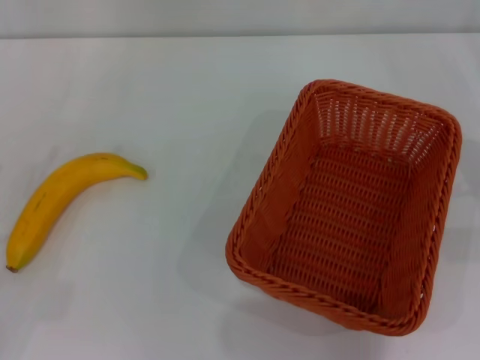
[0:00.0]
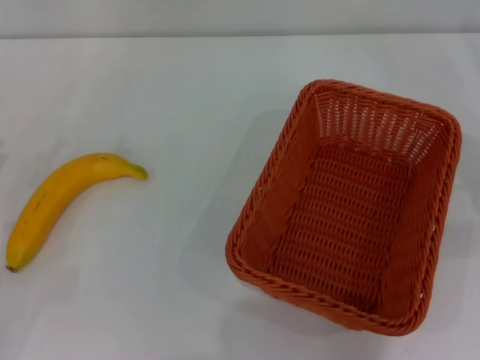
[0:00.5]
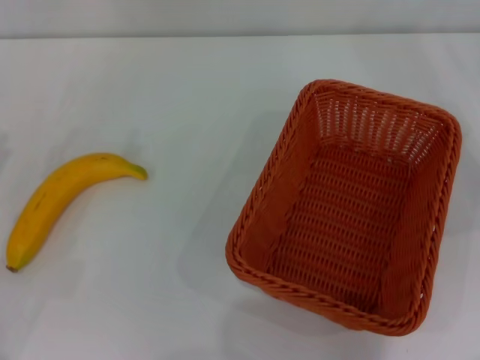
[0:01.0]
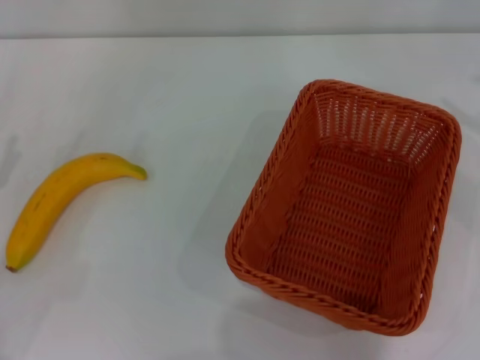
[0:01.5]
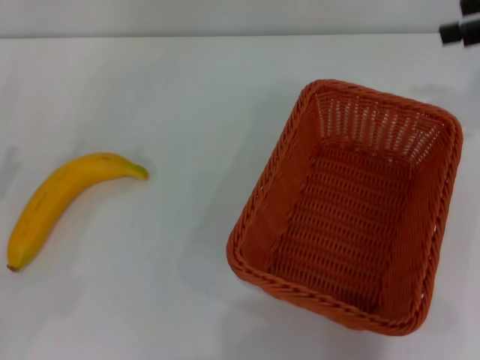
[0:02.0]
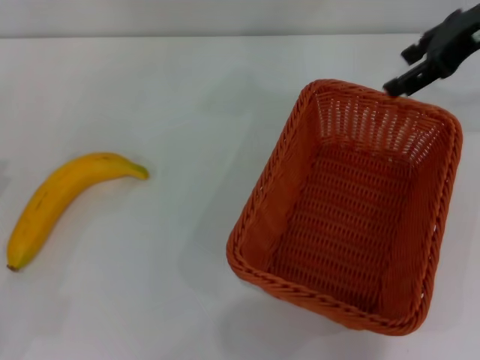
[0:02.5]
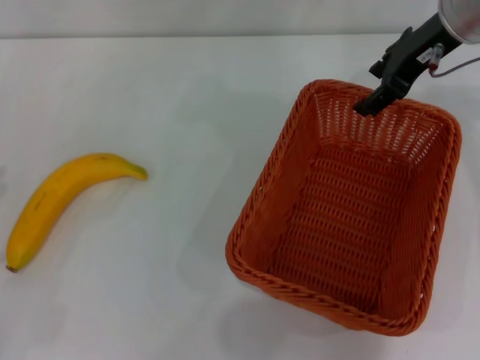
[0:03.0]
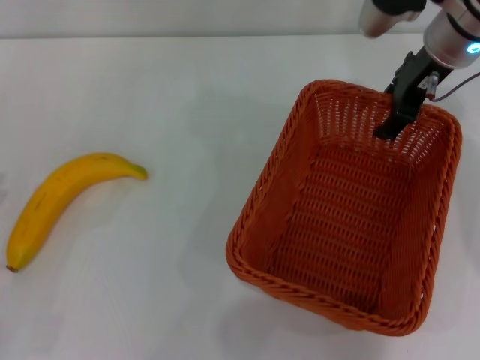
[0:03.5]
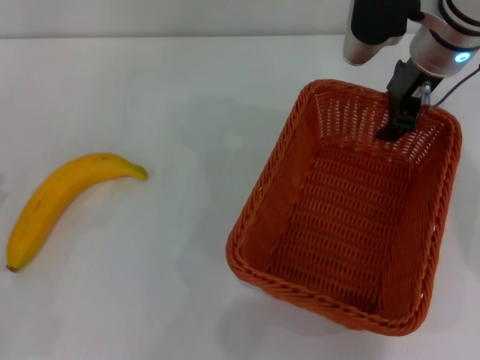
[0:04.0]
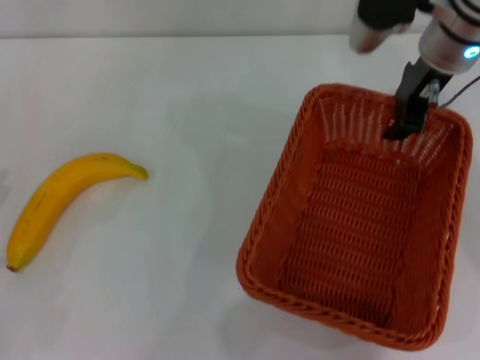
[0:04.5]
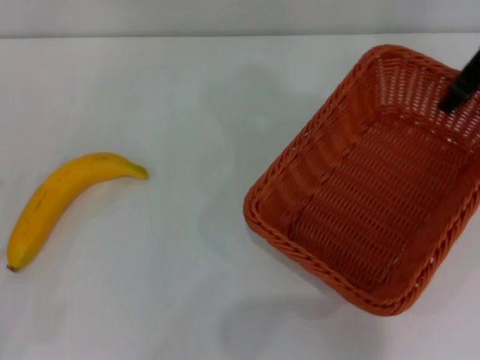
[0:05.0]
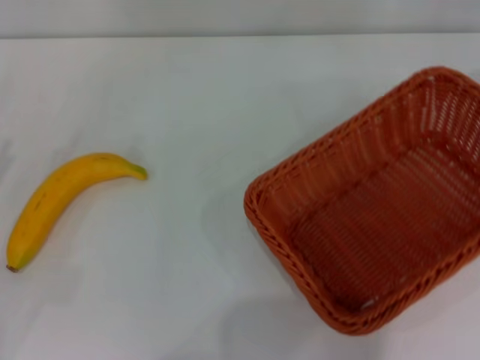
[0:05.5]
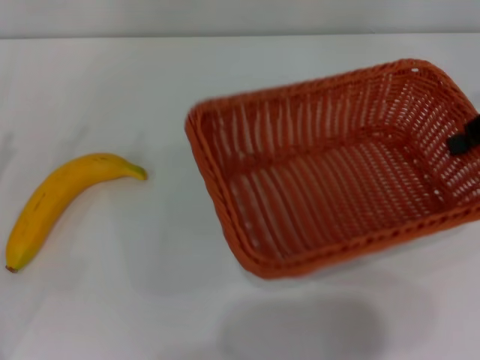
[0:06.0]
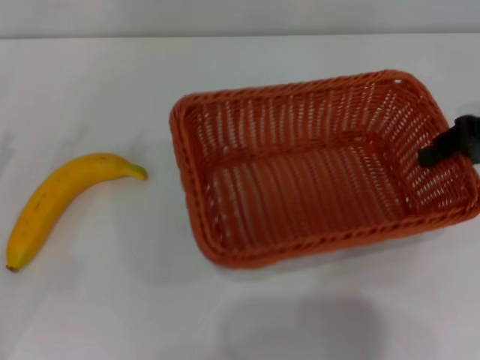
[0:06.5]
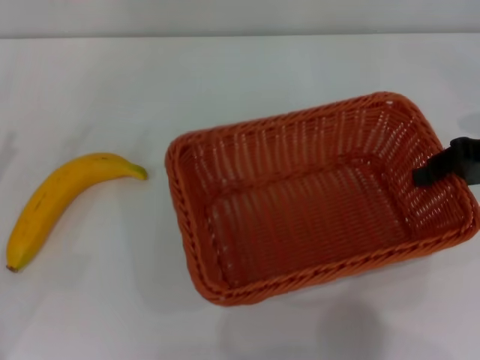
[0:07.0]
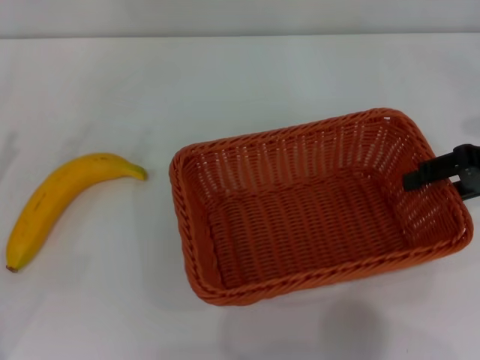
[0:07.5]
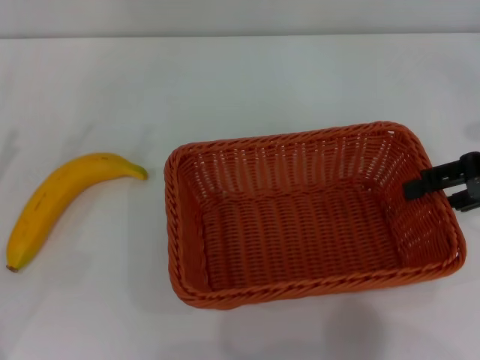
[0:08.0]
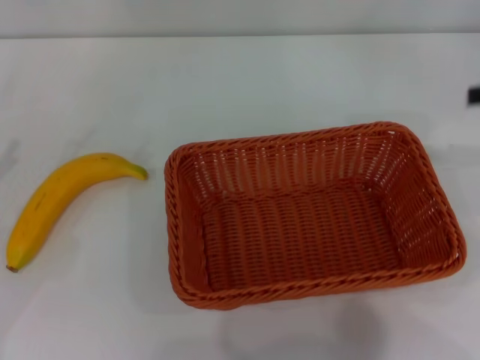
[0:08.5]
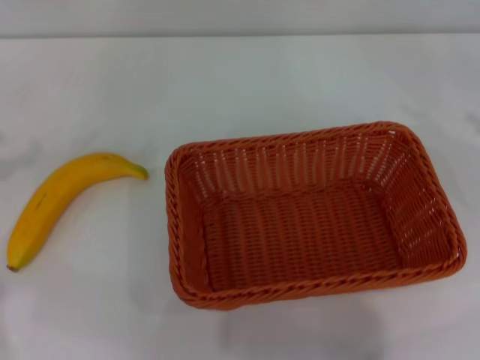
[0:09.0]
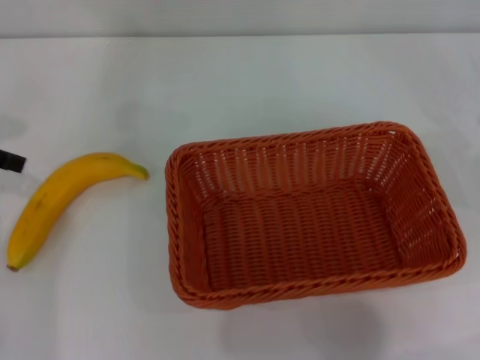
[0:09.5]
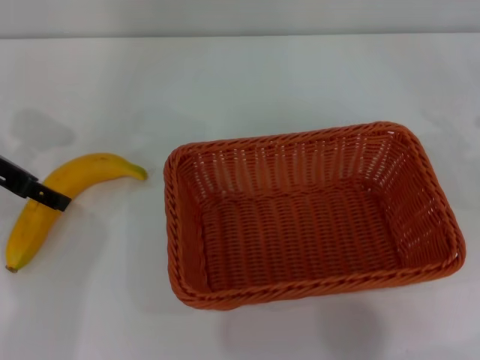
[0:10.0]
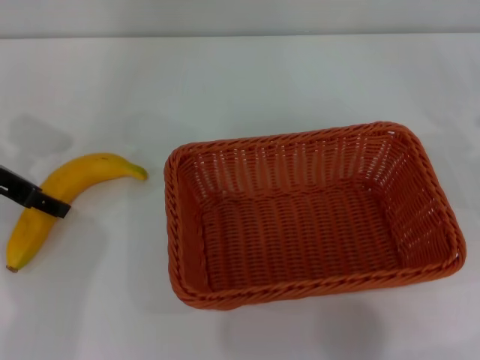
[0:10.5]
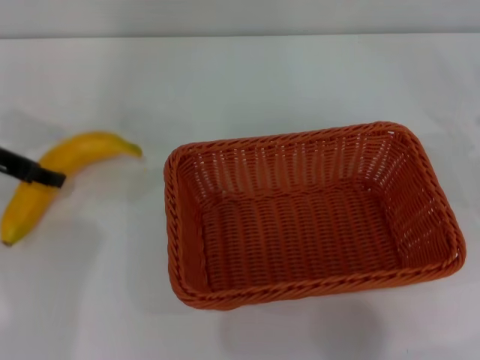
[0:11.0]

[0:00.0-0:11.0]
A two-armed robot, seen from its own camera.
Step, 0:00.0 to 0:04.5: Pick up the light basket with the right gripper.
Step, 0:05.0 to 0:08.0: Place the light basket in the center of view with the right gripper.
0:00.0 to 0:02.0: The right gripper heads upward and forward, covering about 20 cm.
0:02.0 to 0:03.5: The right gripper moves to the left and downward, about 15 cm.
0:03.5 to 0:05.5: The right gripper moves to the right, approximately 15 cm, and closes up. The left gripper changes place by approximately 5 cm.
0:05.5 to 0:07.5: The right gripper shifts about 10 cm downward and backward, and opens.
0:07.5 to 0:09.0: The left gripper travels upward and to the left by some 10 cm. Meanwhile the right gripper goes roughly 10 cm to the right, and opens.
0:09.0 to 0:11.0: The left gripper moves to the right, forward and downward, approximately 15 cm, and closes up.

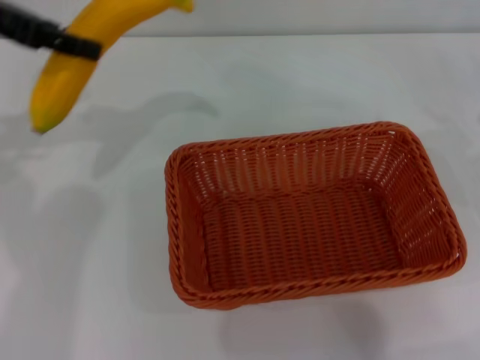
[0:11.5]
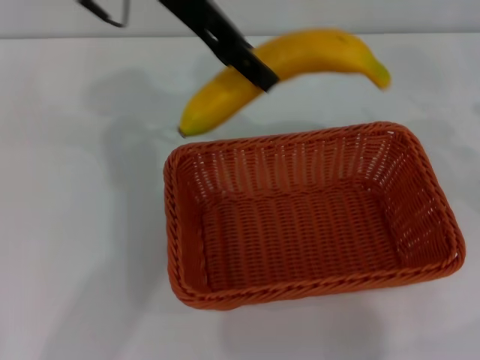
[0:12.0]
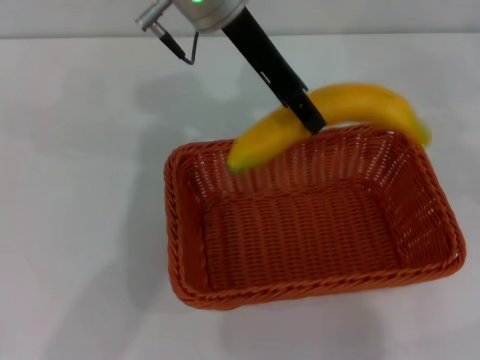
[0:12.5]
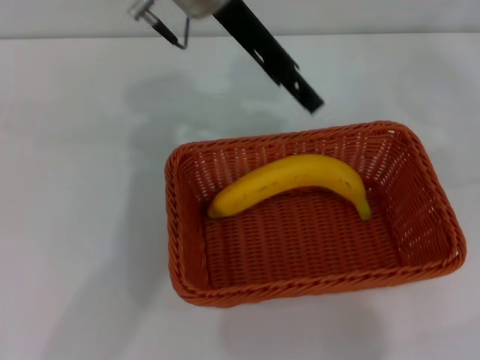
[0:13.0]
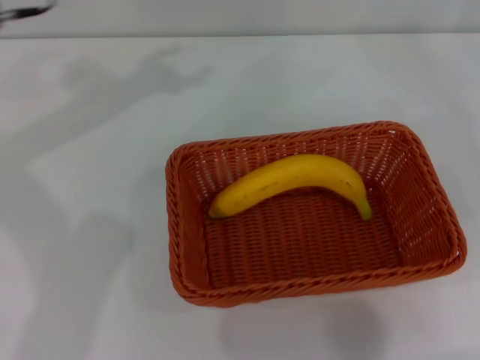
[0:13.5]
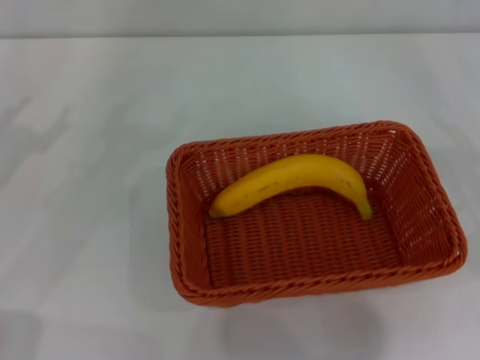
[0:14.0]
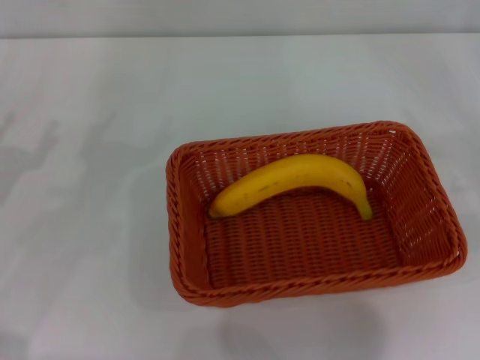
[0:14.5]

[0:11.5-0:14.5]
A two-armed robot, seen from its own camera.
Step, 0:11.5 to 0:12.5: Place the banana into the light basket with the left gripper.
0:11.5 to 0:13.0: The right gripper moves about 5 cm; the left gripper travels to the right by some 25 cm, and opens.
0:13.0 to 0:14.5: The left gripper moves to the left, downward and backward, roughly 40 cm, and opens. The right gripper is displaced downward by roughly 5 cm.

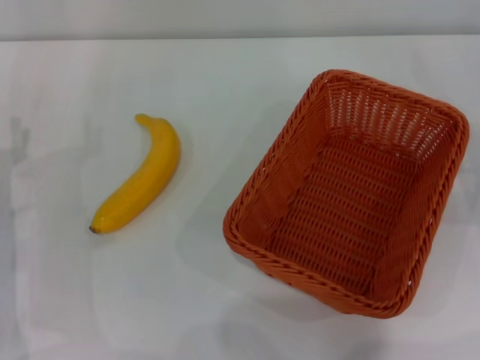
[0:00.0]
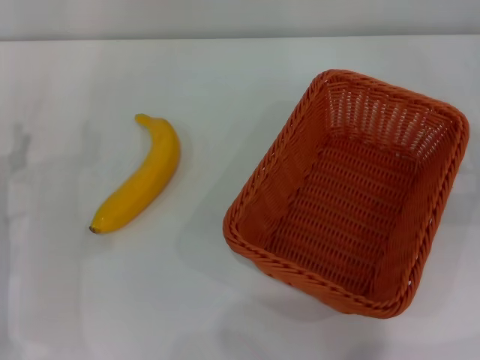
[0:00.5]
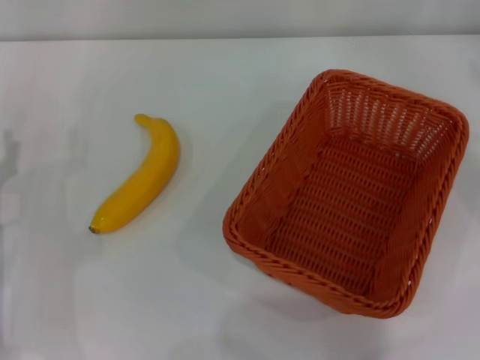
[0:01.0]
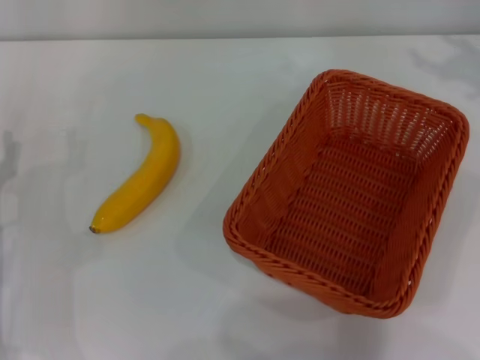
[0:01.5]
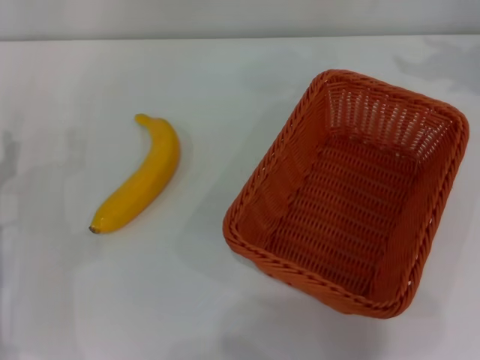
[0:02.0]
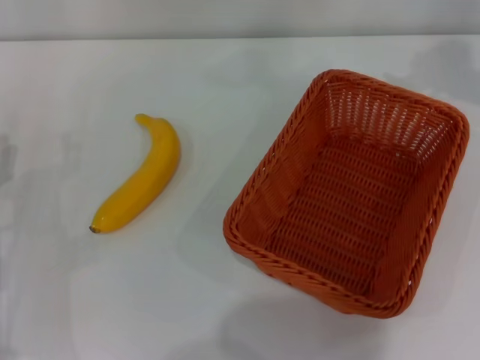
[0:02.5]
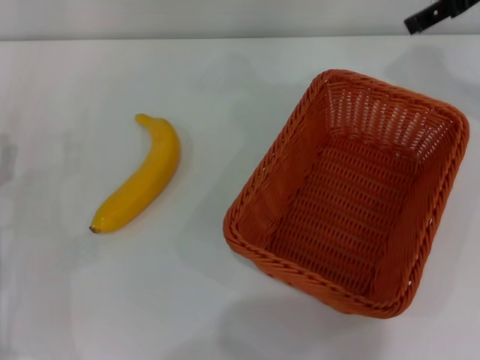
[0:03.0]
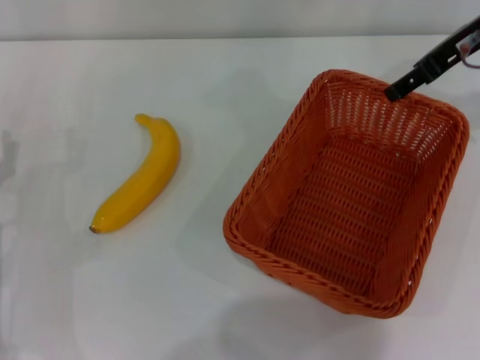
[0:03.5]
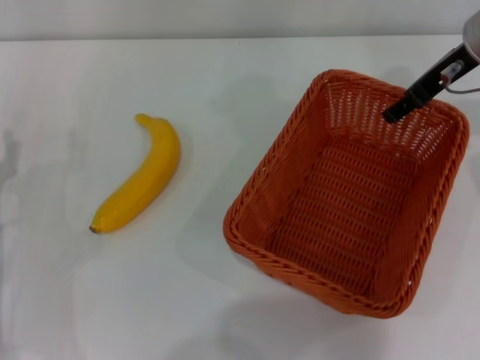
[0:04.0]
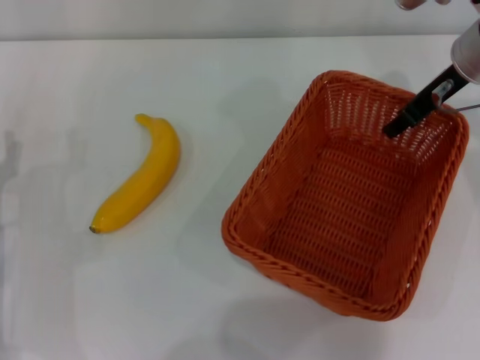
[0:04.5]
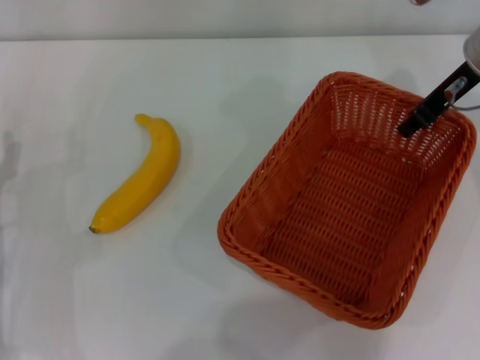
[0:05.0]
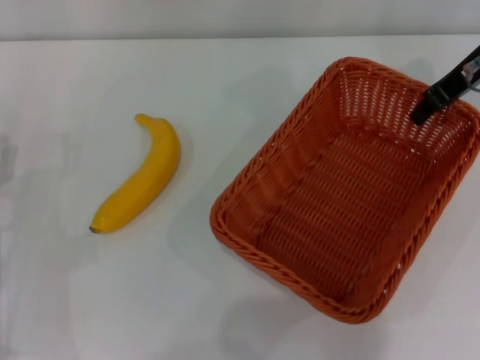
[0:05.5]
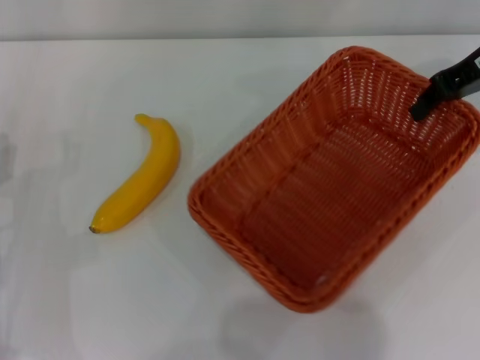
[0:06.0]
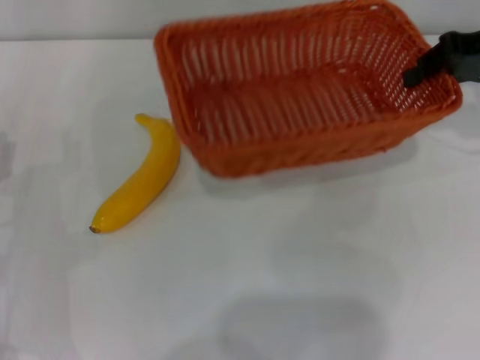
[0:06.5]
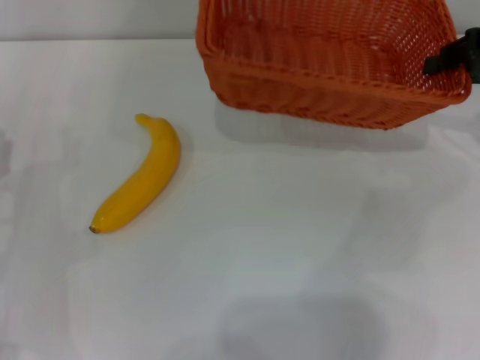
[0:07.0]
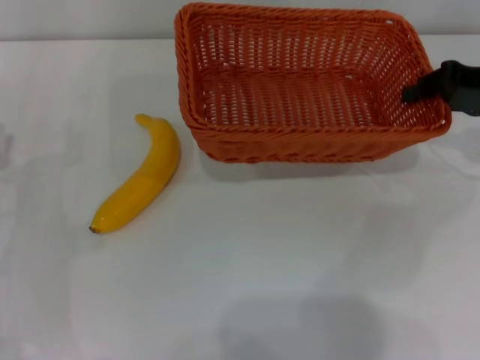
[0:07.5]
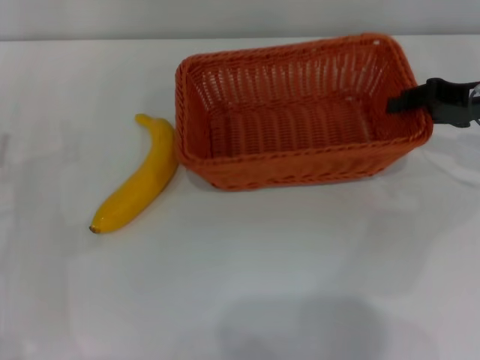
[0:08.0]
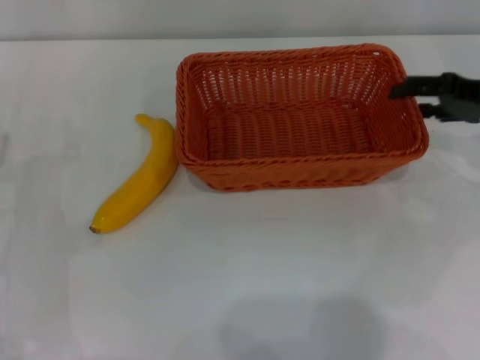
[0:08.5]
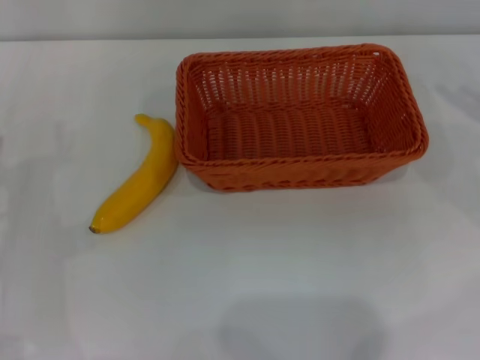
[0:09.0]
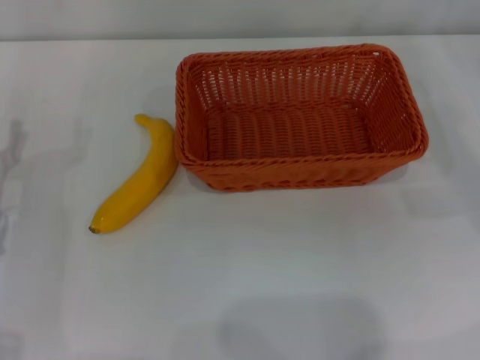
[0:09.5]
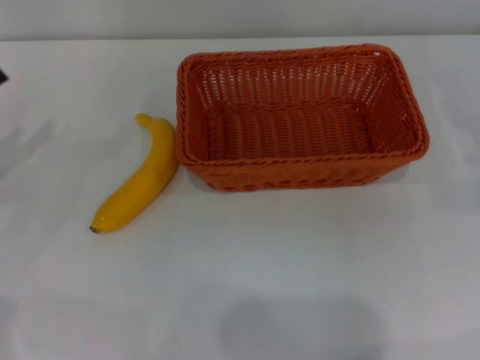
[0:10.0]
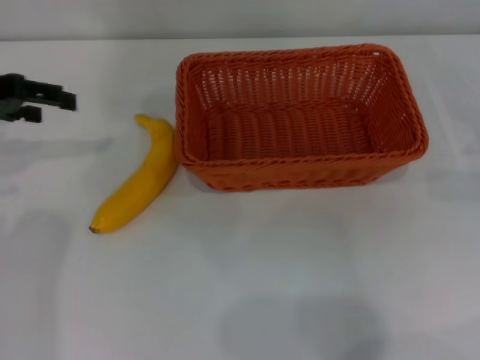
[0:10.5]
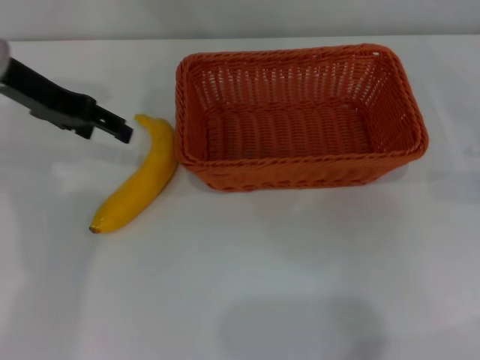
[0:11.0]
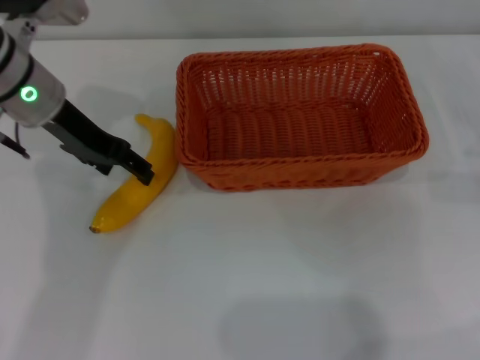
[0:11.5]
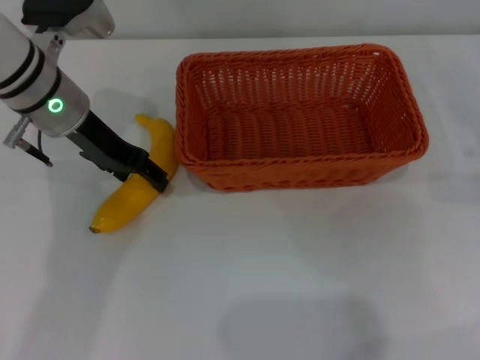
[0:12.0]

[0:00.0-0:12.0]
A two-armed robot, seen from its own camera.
Step, 0:00.0 to 0:05.5: Pick up the light basket with the right gripper.
Step, 0:06.0 to 0:08.5: Place the light basket in the center of view with the right gripper.
0:02.0 to 0:04.0: The right gripper shifts approximately 15 cm to the left and downward.
0:04.0 to 0:06.0: The right gripper closes up.
0:06.0 to 0:08.0: The right gripper heads downward, covering approximately 10 cm.
0:08.0 to 0:10.0: The right gripper travels to the right, backward and downward by some 15 cm, and opens up.
0:10.0 to 0:12.0: The left gripper goes about 20 cm to the right and forward.
